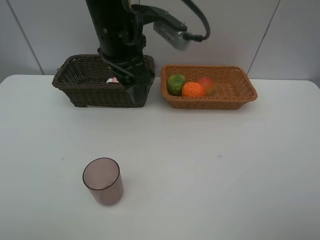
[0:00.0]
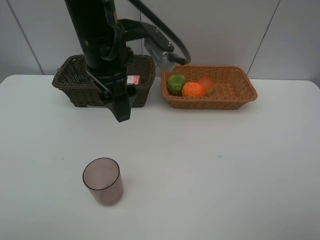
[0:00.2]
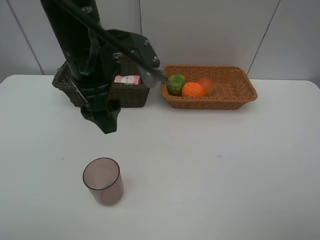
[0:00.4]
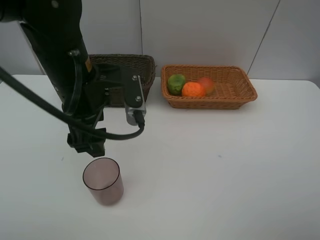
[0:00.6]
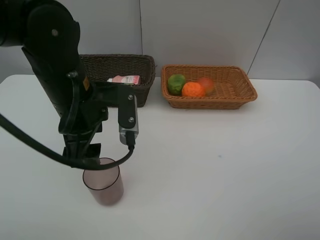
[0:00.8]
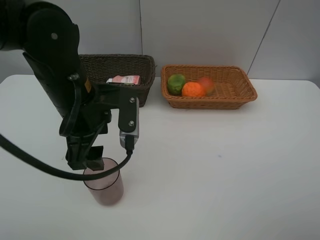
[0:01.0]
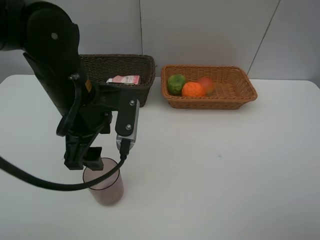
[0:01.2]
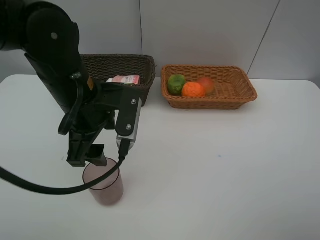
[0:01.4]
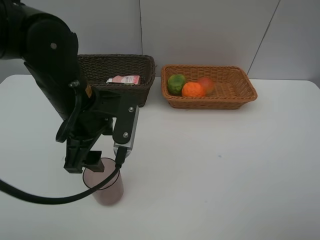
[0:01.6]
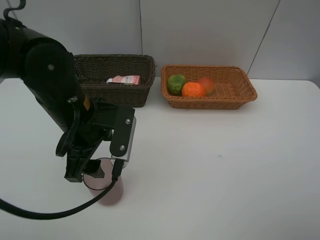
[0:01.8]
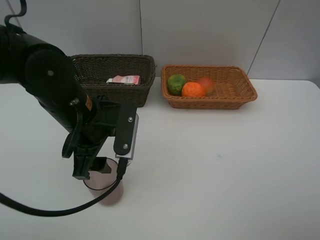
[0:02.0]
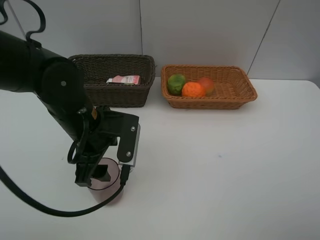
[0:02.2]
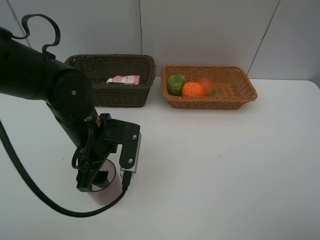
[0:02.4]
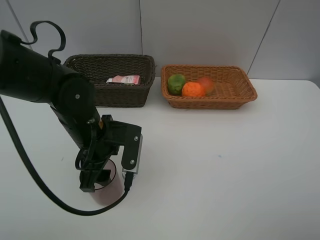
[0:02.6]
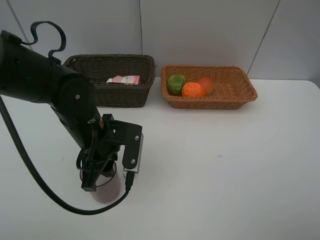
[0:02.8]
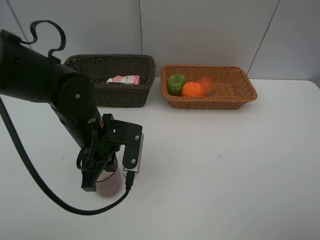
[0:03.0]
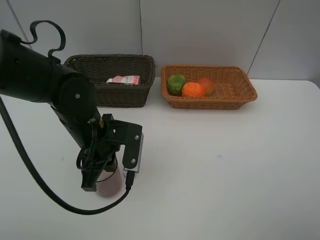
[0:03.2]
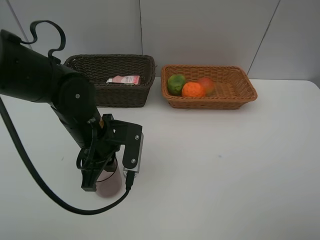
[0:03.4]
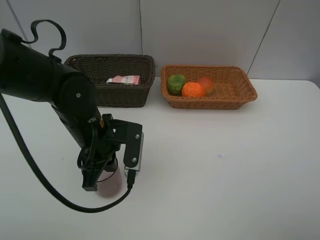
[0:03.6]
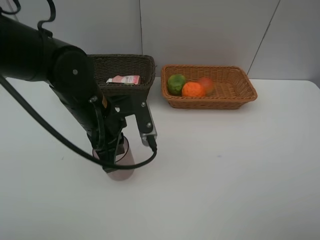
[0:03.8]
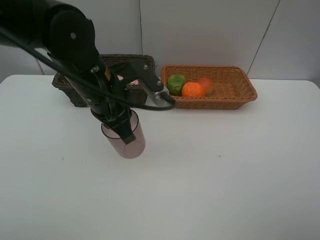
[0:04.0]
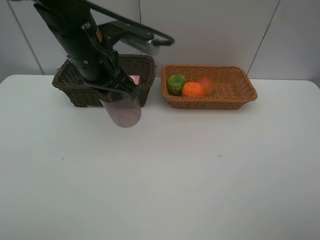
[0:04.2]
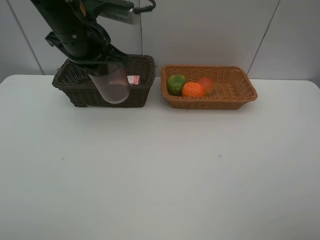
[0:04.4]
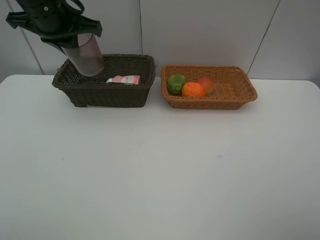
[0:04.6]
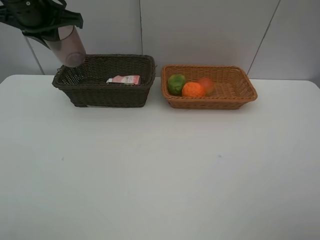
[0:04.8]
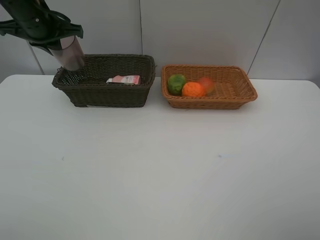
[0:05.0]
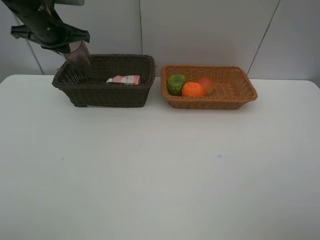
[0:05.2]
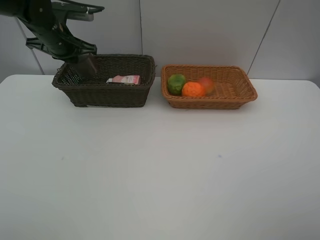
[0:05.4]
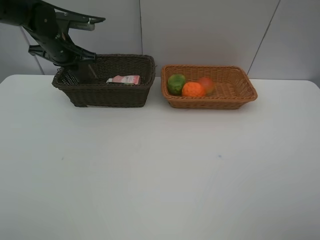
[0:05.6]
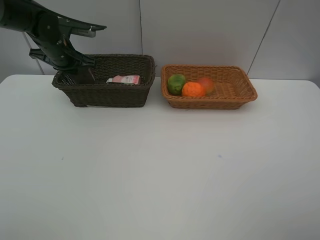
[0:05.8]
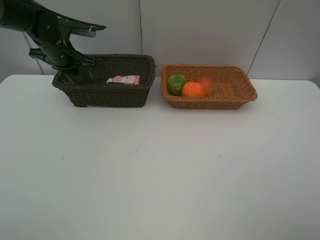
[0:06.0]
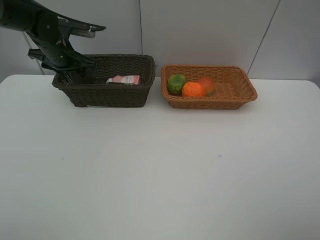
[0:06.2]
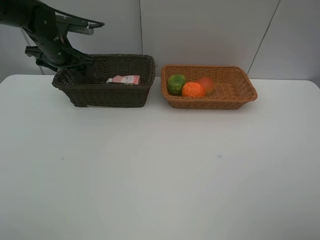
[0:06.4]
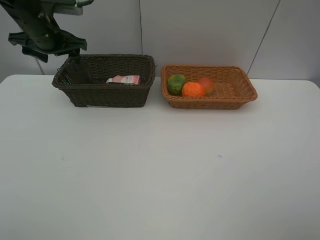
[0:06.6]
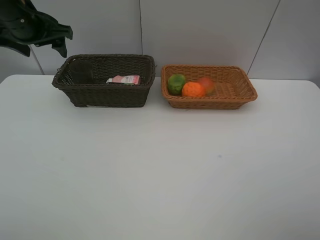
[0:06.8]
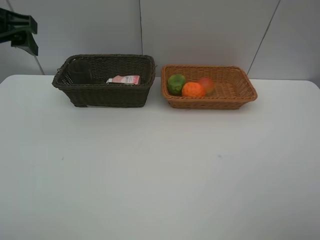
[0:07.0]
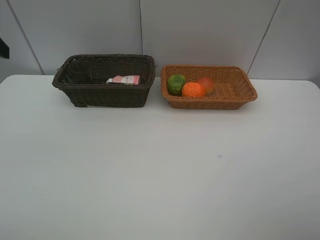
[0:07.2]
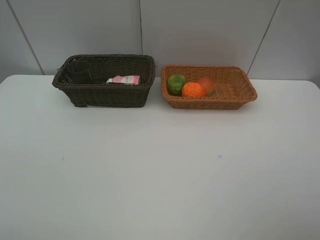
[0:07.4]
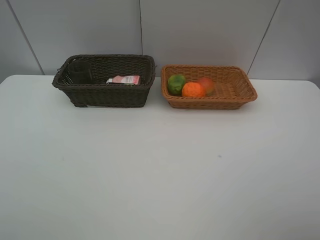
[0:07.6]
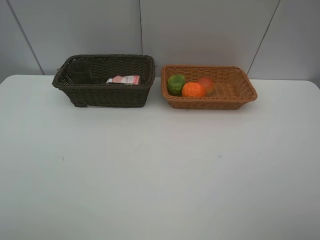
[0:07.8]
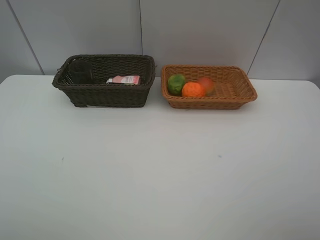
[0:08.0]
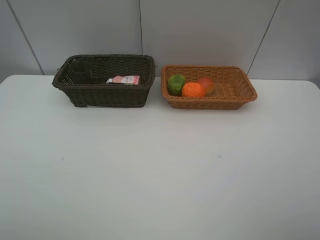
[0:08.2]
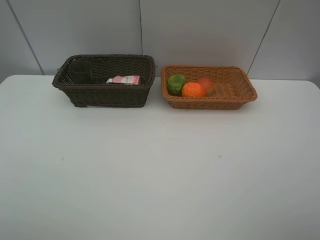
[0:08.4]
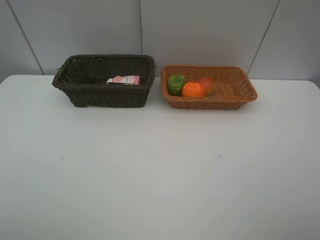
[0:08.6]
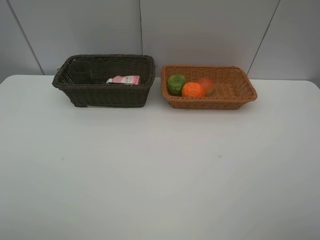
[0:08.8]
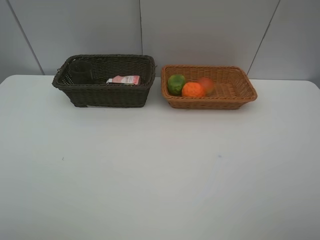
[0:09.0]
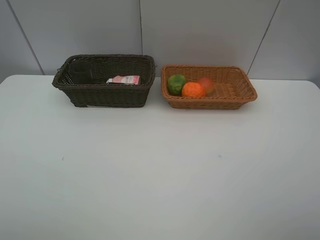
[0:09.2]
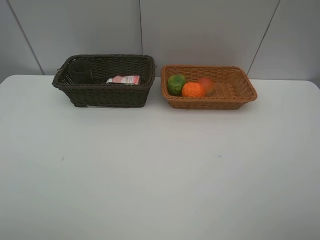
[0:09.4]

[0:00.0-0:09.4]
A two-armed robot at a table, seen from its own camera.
Task of the whole recording: place multiple objects separately in different baskets.
0:00.0 to 0:01.6: The left gripper is displaced downward, backward and to the left by approximately 15 cm.
0:01.6 to 0:03.2: The left gripper moves downward, roughly 5 cm, and closes.
0:03.2 to 0:04.8: The left gripper goes some 25 cm upward, forward and to the left.
0:04.8 to 0:06.2: The left gripper goes approximately 15 cm downward and forward, and opens.
0:06.2 to 0:07.8: The left gripper heads backward, covering about 40 cm.

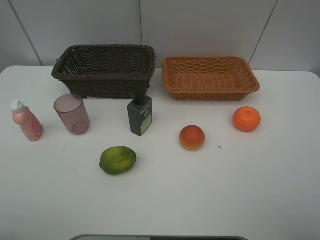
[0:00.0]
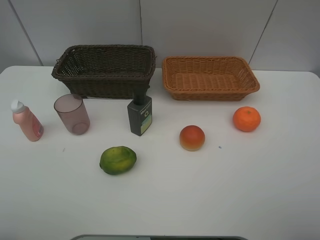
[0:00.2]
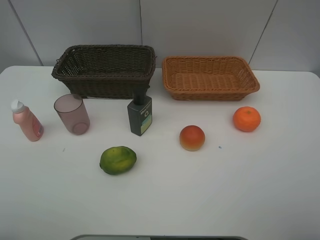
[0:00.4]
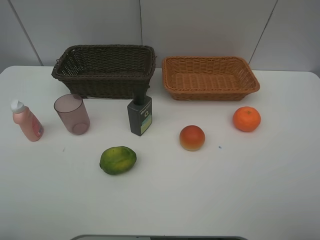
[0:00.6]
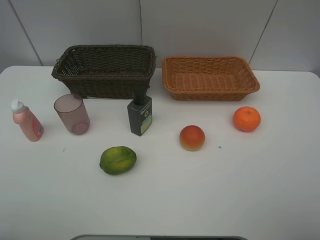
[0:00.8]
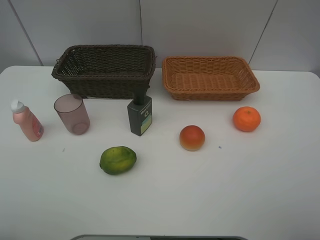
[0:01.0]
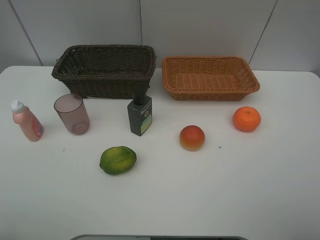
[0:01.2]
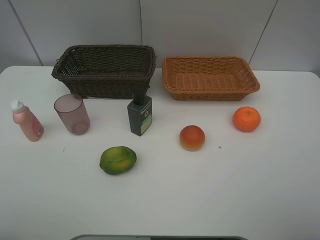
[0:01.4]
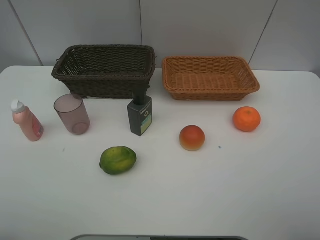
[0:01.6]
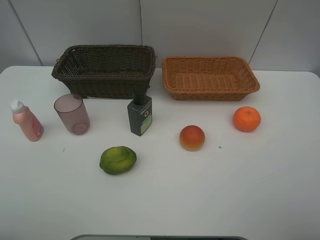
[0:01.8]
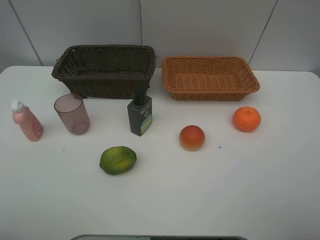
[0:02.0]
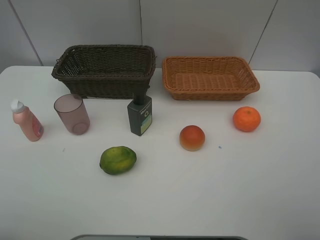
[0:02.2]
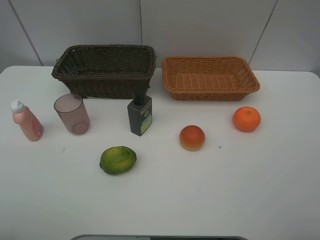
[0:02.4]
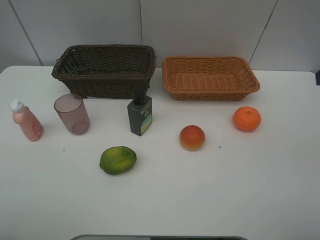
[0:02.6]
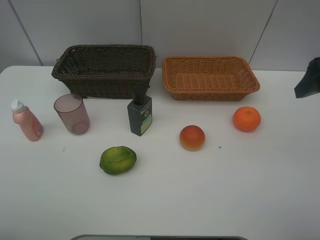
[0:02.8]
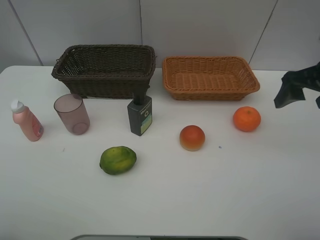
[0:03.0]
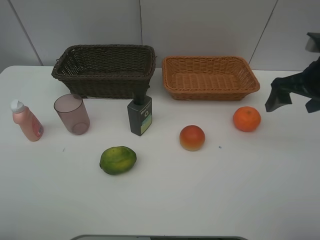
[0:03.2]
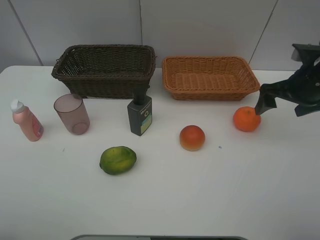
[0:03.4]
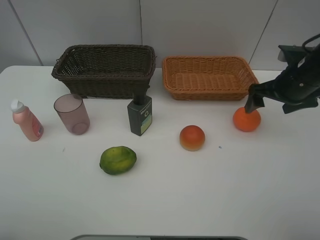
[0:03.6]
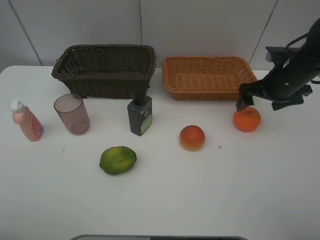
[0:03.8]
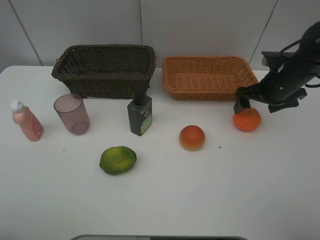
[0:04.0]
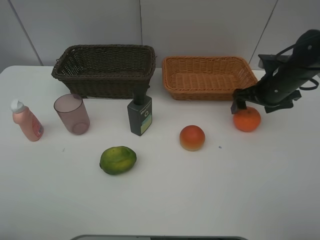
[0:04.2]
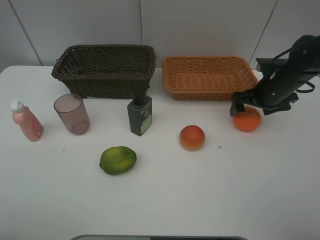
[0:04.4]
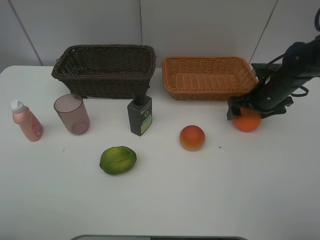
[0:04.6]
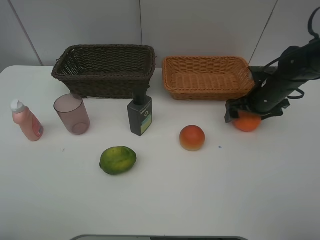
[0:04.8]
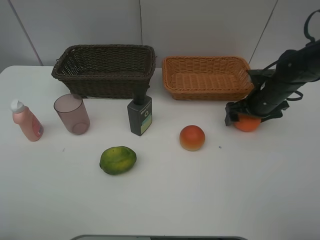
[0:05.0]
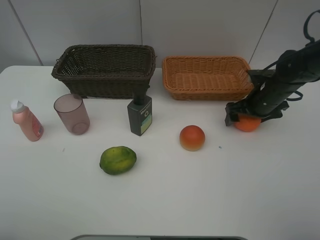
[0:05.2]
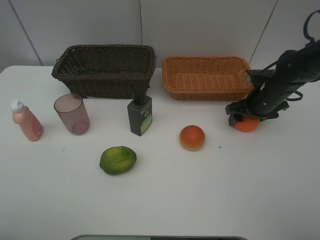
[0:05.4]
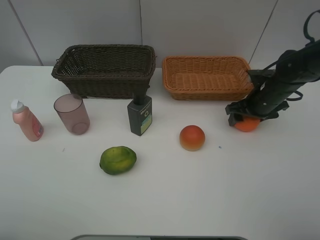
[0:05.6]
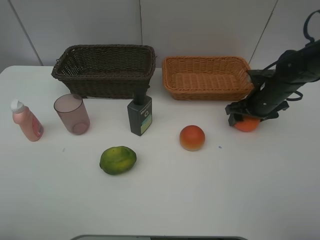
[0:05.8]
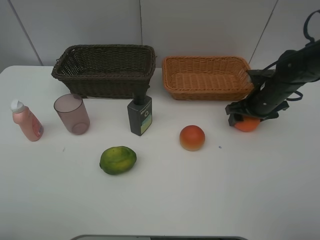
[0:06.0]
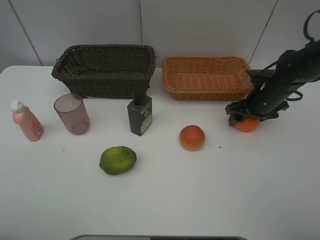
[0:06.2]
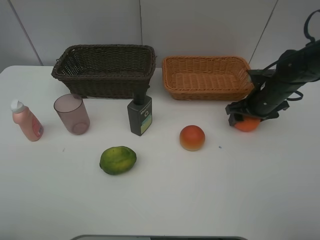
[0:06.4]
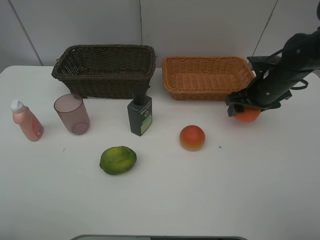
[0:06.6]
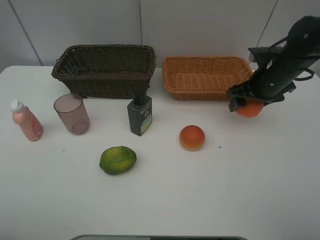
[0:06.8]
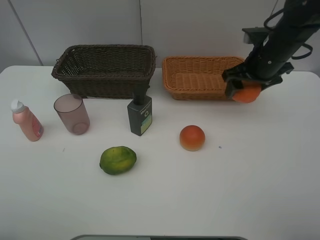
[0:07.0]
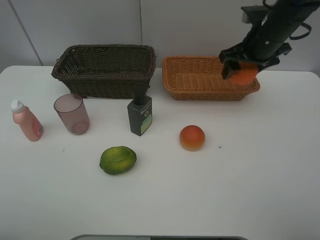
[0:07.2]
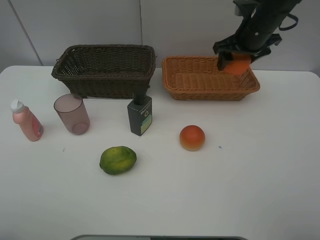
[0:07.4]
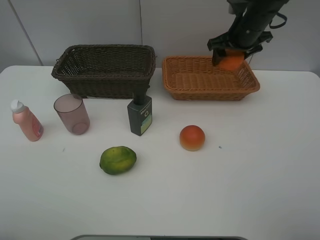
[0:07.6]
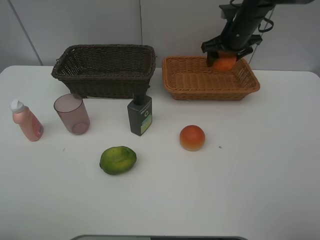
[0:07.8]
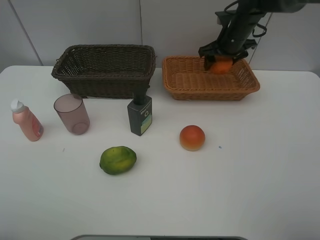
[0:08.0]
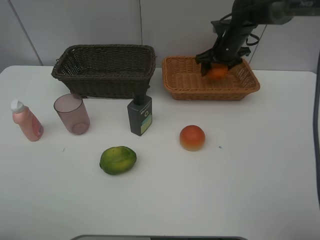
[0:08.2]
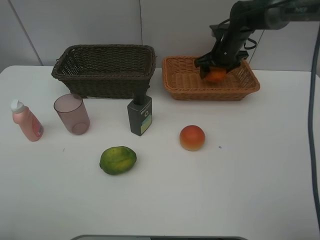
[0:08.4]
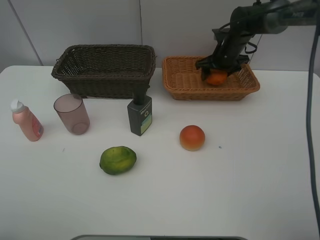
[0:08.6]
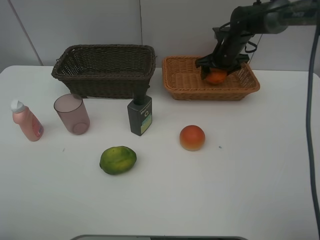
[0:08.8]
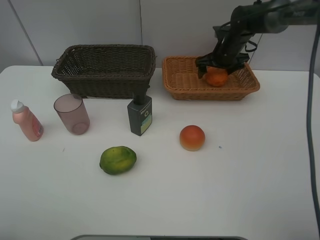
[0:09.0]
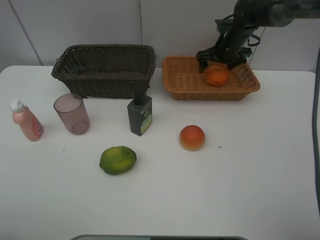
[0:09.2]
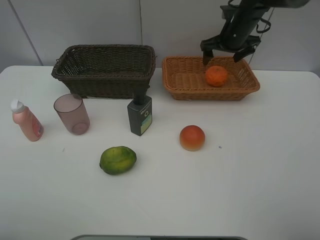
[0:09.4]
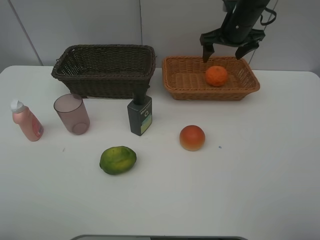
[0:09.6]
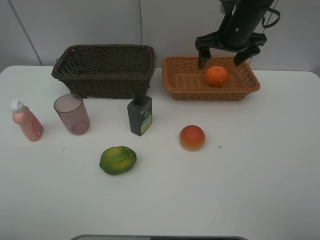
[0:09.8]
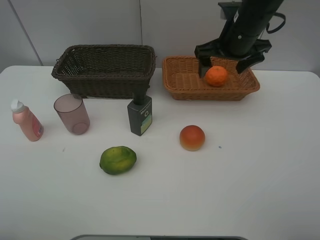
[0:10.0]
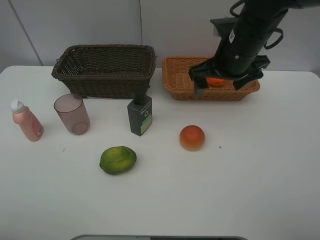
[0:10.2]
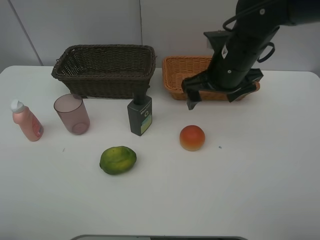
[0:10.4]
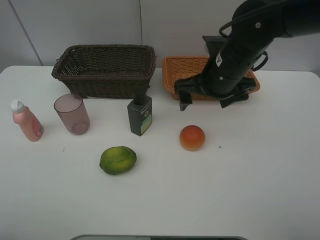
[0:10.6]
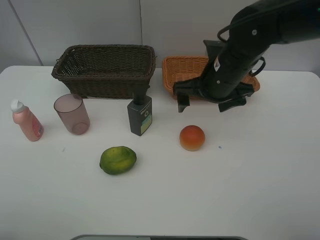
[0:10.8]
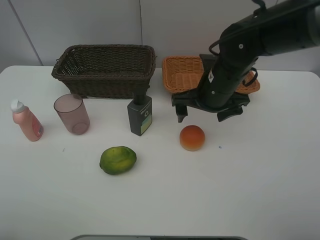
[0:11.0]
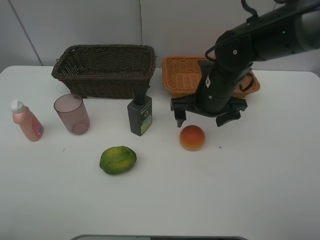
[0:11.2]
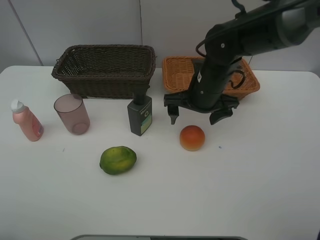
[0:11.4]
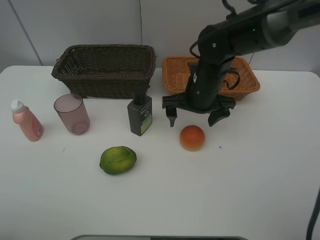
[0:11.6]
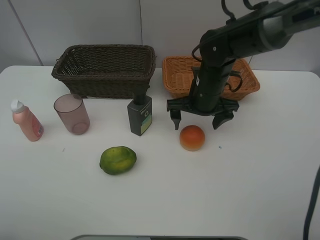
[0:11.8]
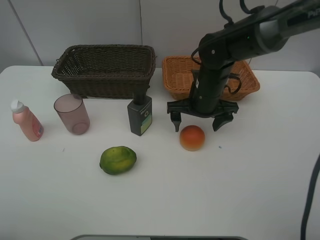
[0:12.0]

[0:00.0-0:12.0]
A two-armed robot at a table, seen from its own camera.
Task of the whole recording: place multiple objects separately in different baskets.
0:00.0 to 0:01.6: The two grippers keep their place.
0:01.6 to 0:03.0: The right gripper moves forward, about 25 cm.
0:03.0 to 0:04.4: The right gripper shifts about 15 cm downward and forward.
0:04.4 to 0:06.0: The right gripper closes.
0:06.0 to 0:07.6: The right gripper goes approximately 15 cm upward, forward and to the left.
0:07.6 to 0:09.0: The right gripper goes about 10 cm downward and forward, and opens up.
0:09.0 to 0:10.4: The right gripper travels backward by some 20 cm.
0:10.4 to 0:12.0: The right gripper moves downward, some 10 cm.

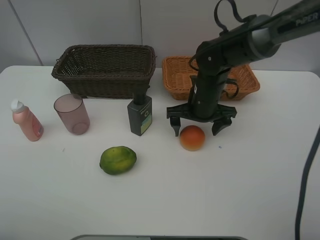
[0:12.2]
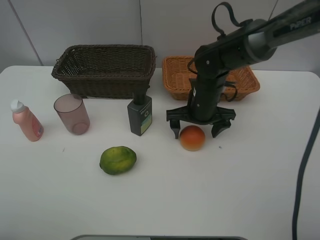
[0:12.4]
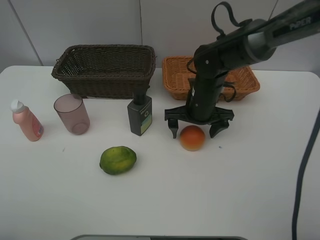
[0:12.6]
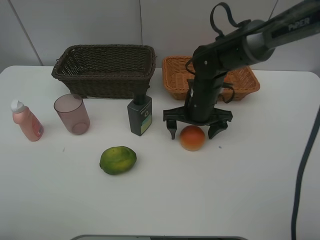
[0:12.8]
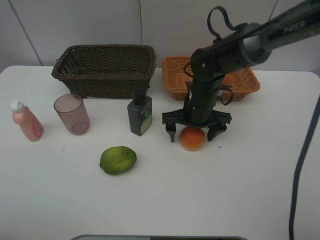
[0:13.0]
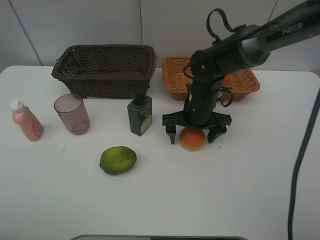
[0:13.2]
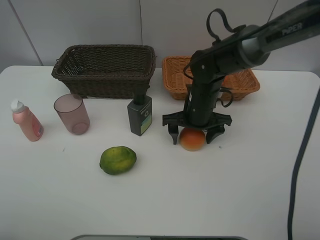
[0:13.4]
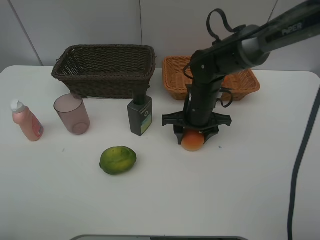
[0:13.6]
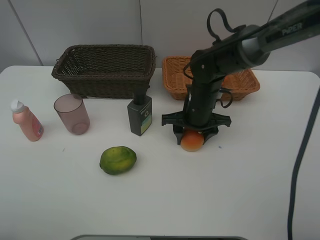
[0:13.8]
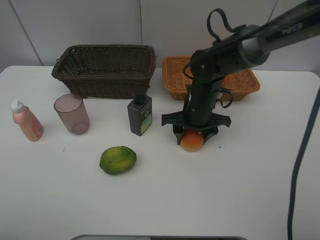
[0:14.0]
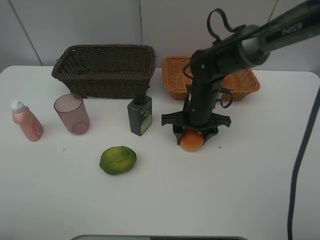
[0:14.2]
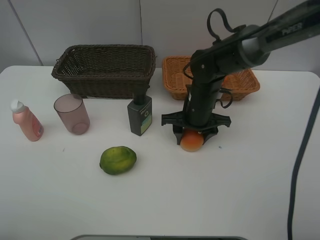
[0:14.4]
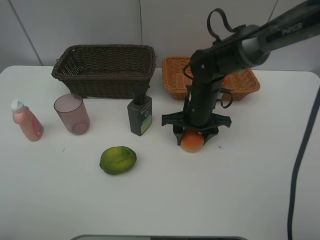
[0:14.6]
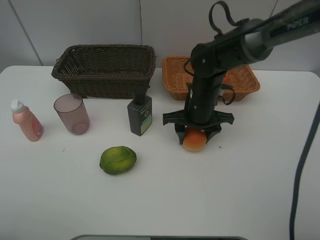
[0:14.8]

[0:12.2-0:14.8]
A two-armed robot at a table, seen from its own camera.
Task of the whole recording: place multiple objects separately in different baskets.
0:12.2 to 0:13.4: The right gripper closes.
0:13.4 to 0:14.8: The grippers make only small movements.
